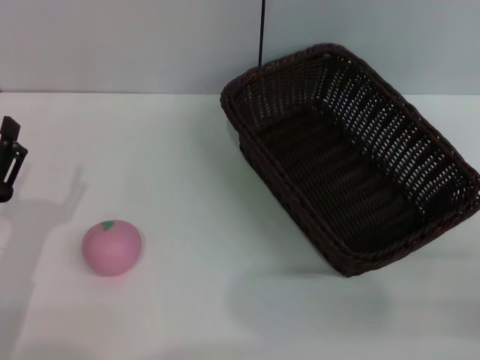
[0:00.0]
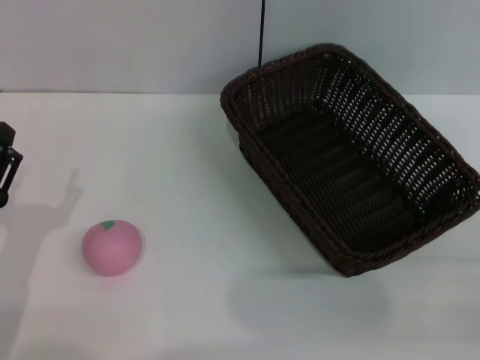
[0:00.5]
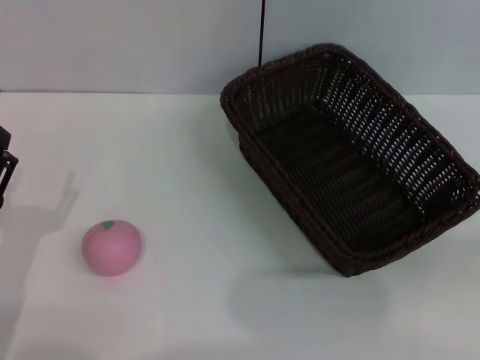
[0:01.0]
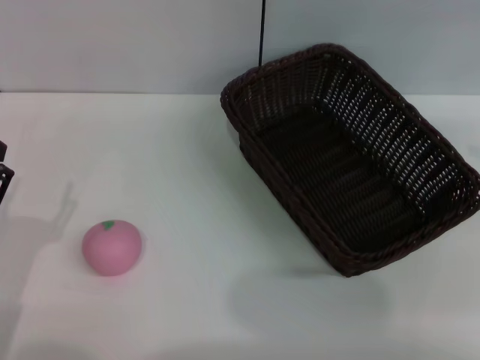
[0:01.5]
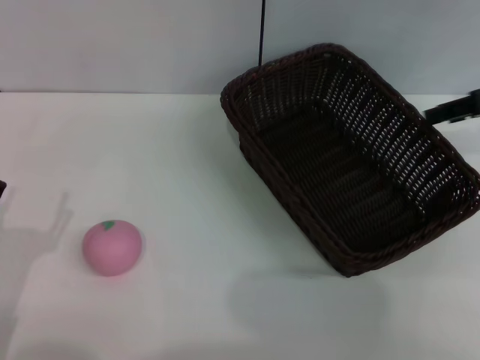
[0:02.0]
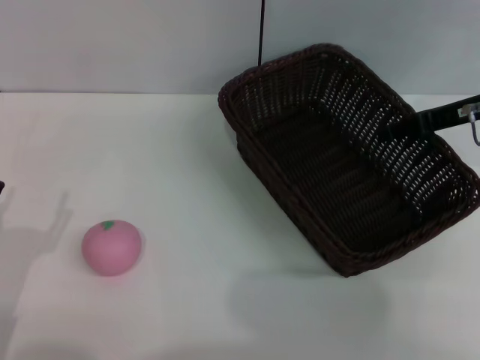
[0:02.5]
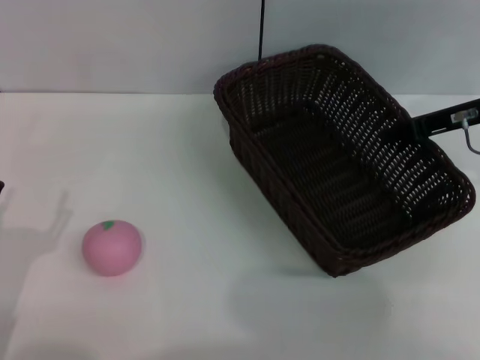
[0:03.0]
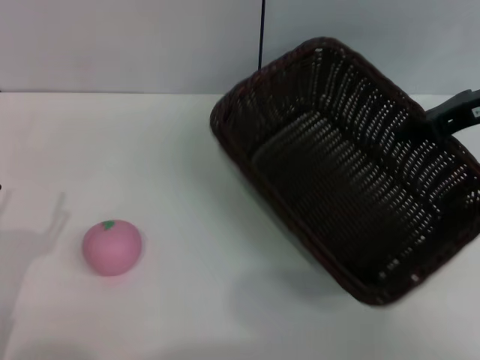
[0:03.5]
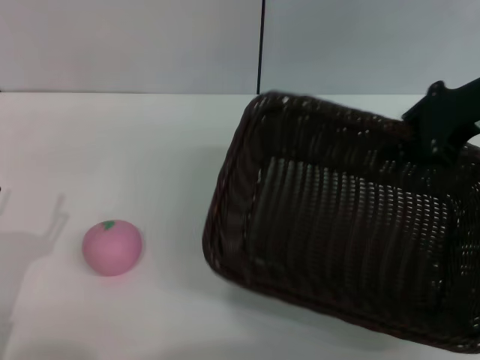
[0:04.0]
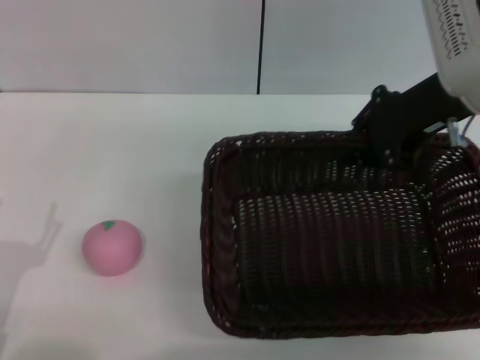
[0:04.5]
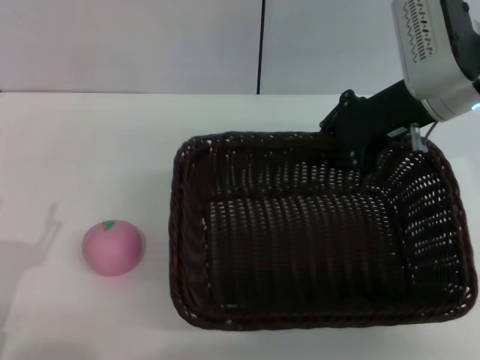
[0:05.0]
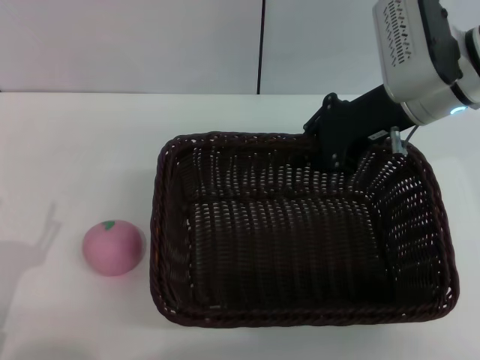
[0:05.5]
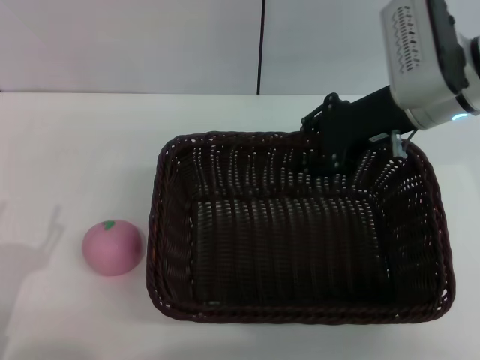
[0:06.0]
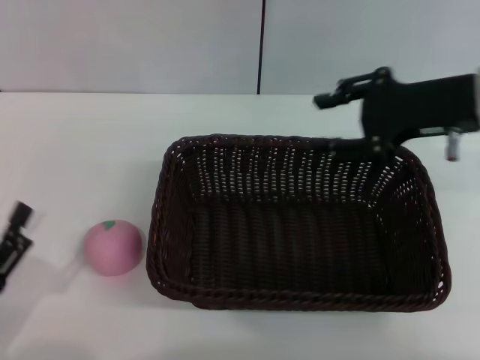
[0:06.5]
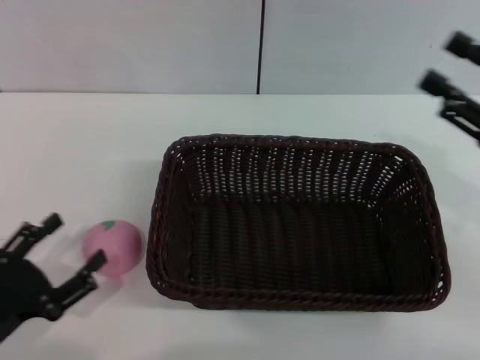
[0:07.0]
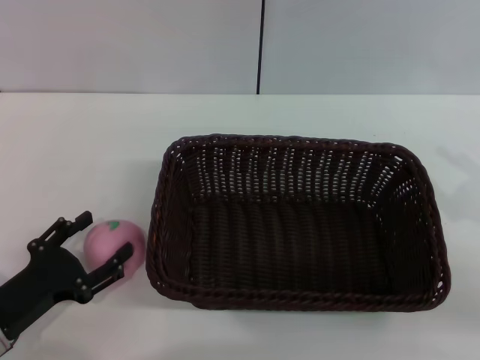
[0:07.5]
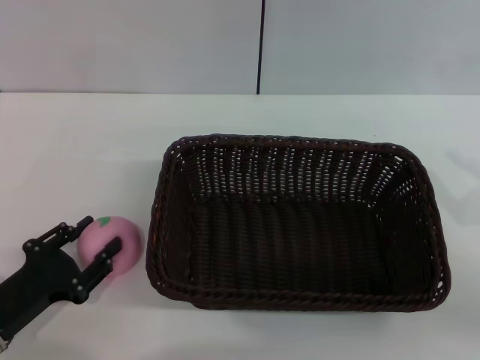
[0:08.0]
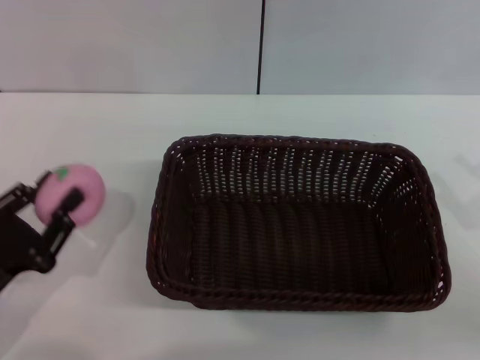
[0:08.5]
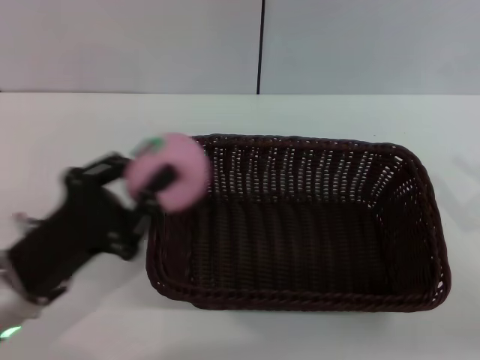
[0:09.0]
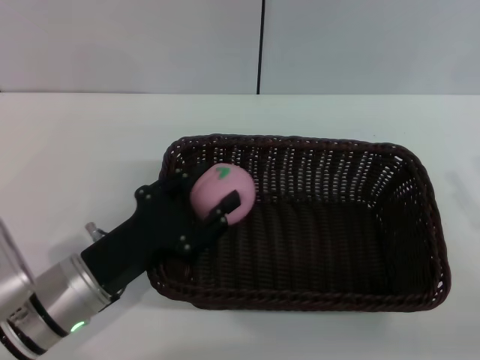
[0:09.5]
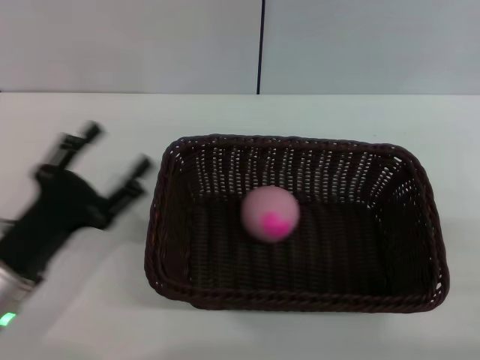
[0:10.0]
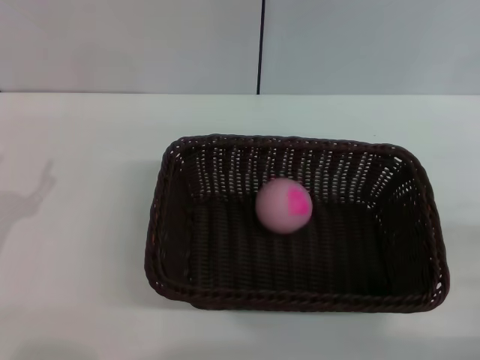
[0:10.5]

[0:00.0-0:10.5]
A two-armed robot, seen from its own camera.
Step, 0:00.0 to 0:03.5: Pick up the dark basket with the right gripper.
Step, 0:04.0 to 0:06.0: Place the dark basket in the center of view with the right gripper.
Step, 0:07.0 to 0:08.5: Pick up the peach with the left gripper.
Step, 0:09.0 to 0:10.0: Place the peach into the basket with the left gripper.
0:00.0 to 0:02.0: The right gripper is displaced forward and upward by roughly 25 cm.
0:02.0 to 0:04.0: The right gripper moves to the left, some 5 cm, and closes up.
0:04.0 to 0:06.5: The right gripper goes to the left and returns, roughly 10 cm each way, and opens its fingers.
0:06.5 to 0:08.5: The left gripper closes its fingers; the right gripper travels backward, to the right and downward by approximately 20 cm.
0:08.5 to 0:10.5: The left gripper goes to the right and returns, approximately 10 cm each way, and opens its fingers; the right gripper moves roughly 5 cm.

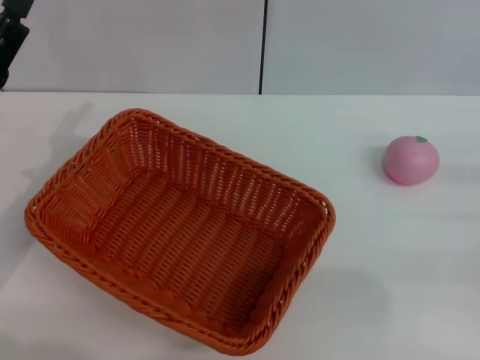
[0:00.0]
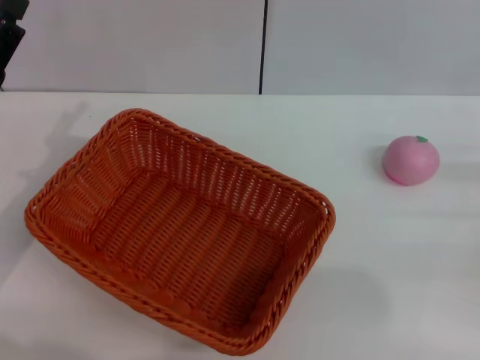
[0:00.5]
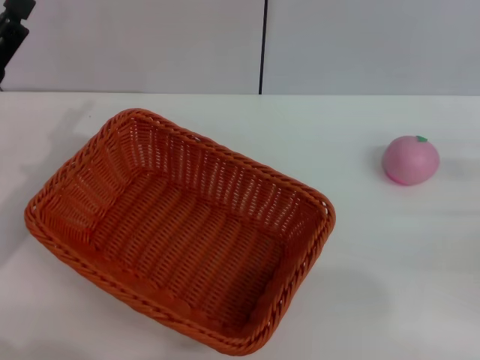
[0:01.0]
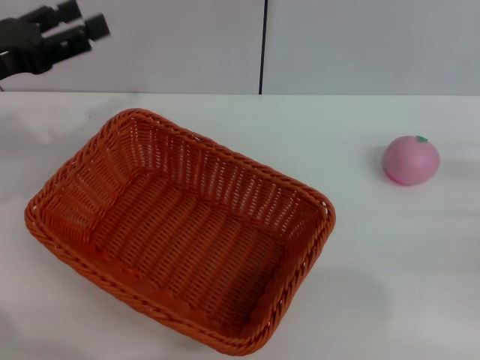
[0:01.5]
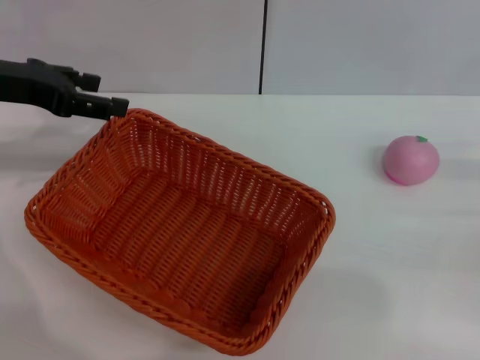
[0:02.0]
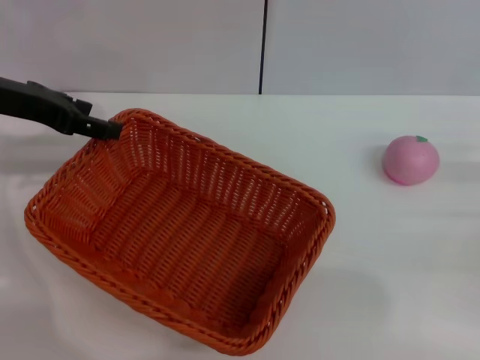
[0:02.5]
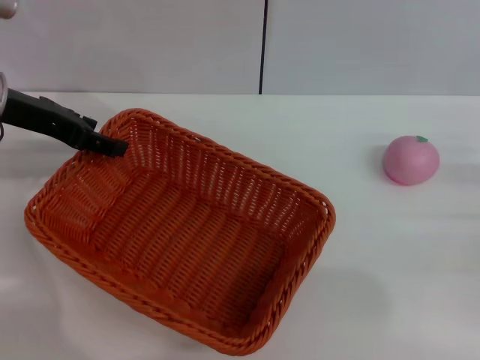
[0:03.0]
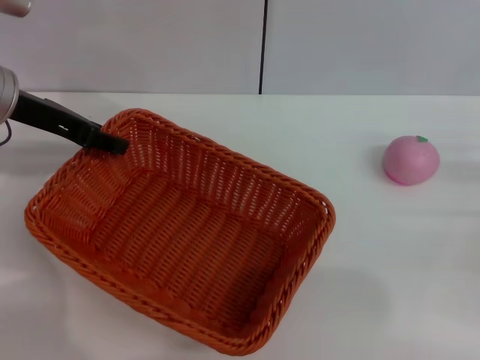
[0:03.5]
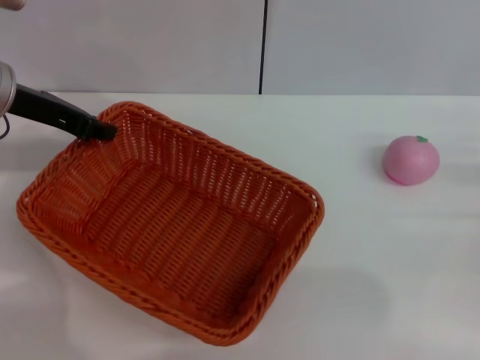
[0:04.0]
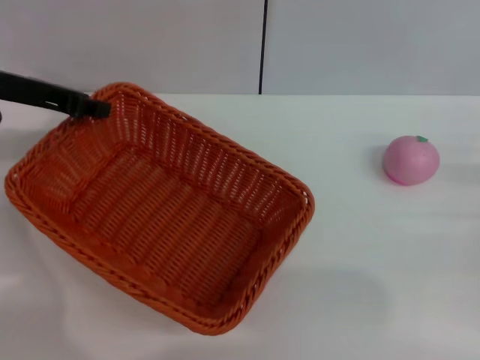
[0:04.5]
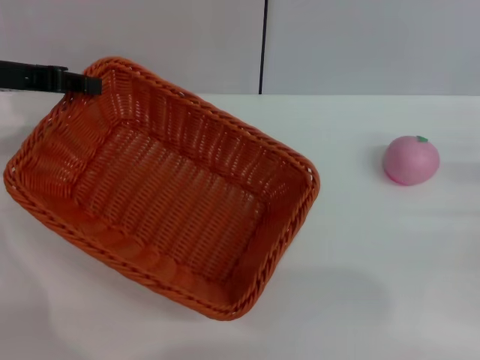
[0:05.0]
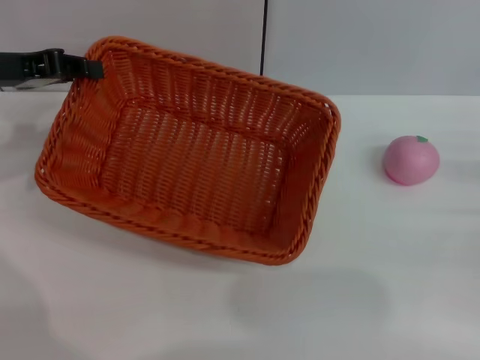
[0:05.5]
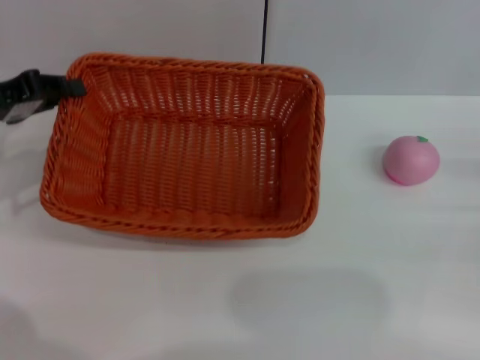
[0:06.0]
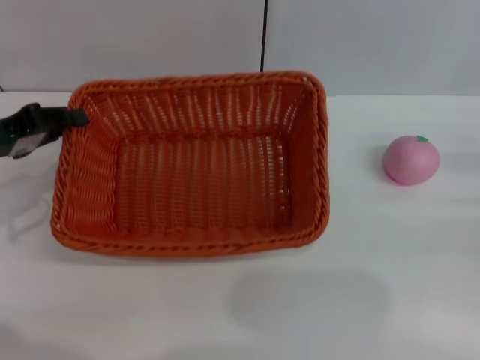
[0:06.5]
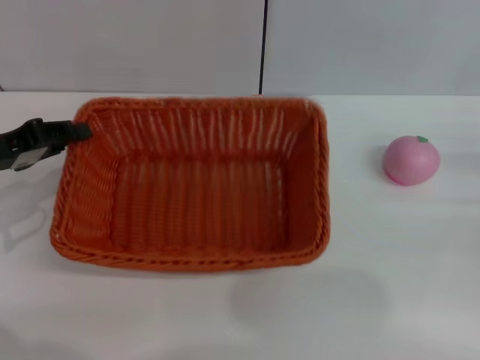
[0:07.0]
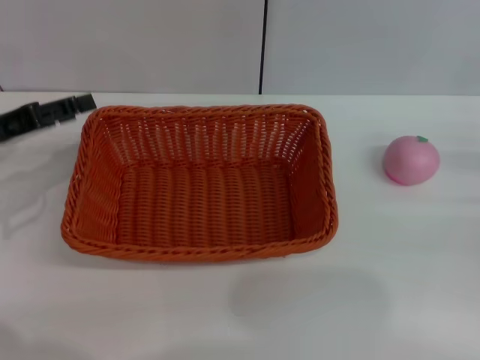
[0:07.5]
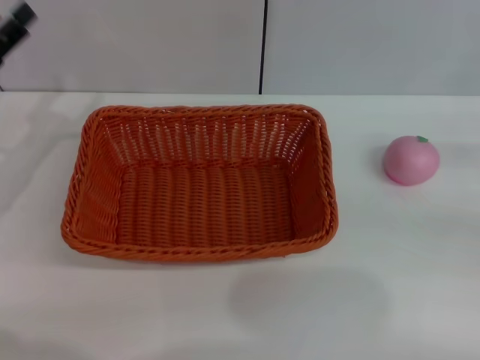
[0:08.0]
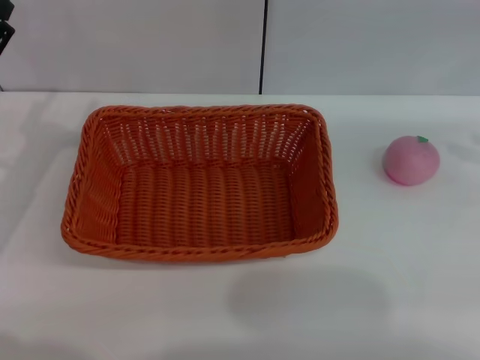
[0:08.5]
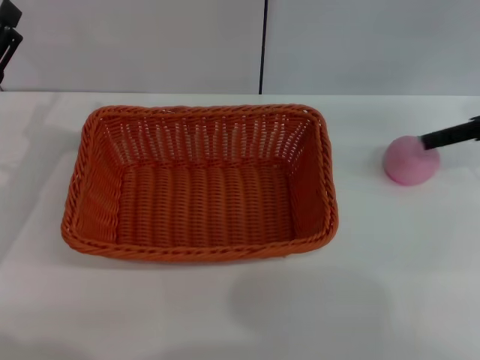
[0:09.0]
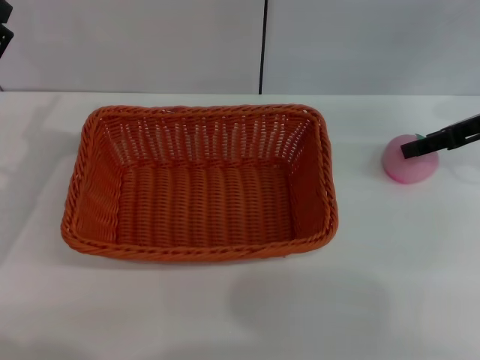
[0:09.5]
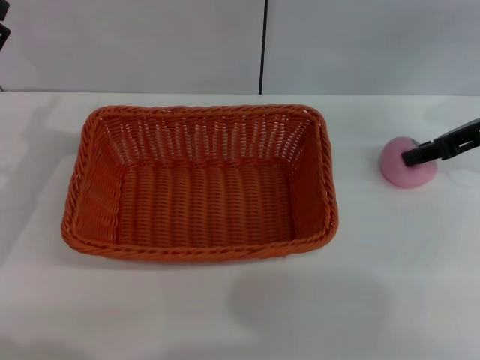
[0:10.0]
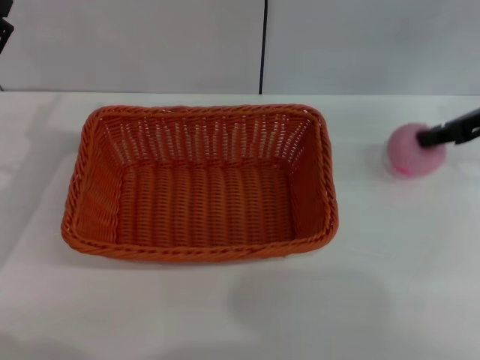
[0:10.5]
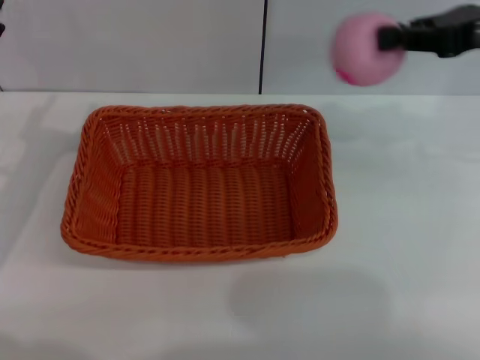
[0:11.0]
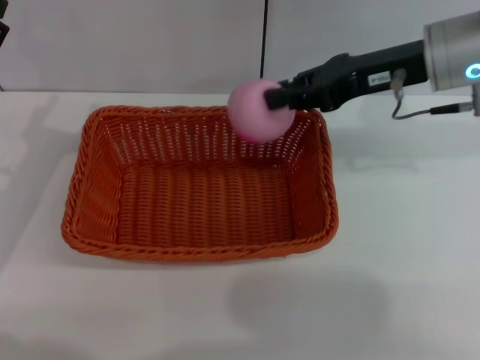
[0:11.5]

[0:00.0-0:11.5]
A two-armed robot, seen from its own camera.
Step, 0:00.0 to 0:04.5: Pick up the light basket with the left gripper.
Step, 0:05.0 to 0:07.5: Place the light basket in the center of view with the right gripper.
Step, 0:08.0 to 0:10.5: Pick up the peach with the left gripper.
0:00.0 to 0:02.0: The left gripper travels upward and forward by some 15 cm.
0:02.0 to 0:04.0: The left gripper closes up.
0:04.0 to 0:06.0: The left gripper heads to the left, covering approximately 5 cm.
0:06.0 to 0:07.5: The left gripper opens up.
0:07.5 to 0:09.5: The right gripper travels forward, upward and to the left by roughly 20 cm, while the left gripper opens its fingers.
0:09.5 to 0:11.5: The right gripper is displaced to the left by about 10 cm, and closes.

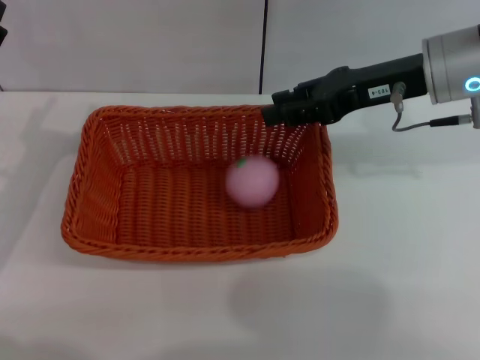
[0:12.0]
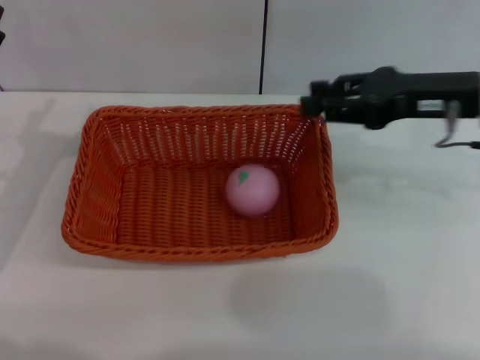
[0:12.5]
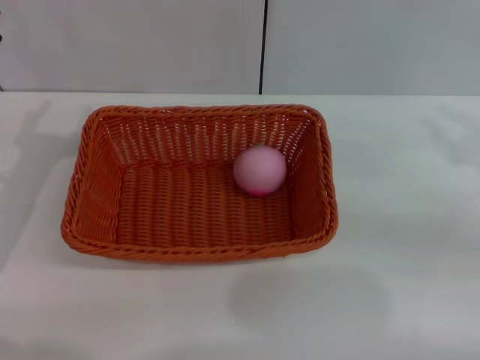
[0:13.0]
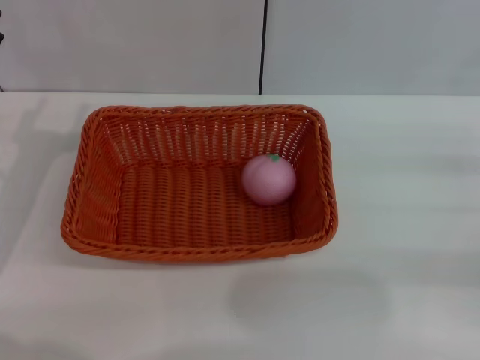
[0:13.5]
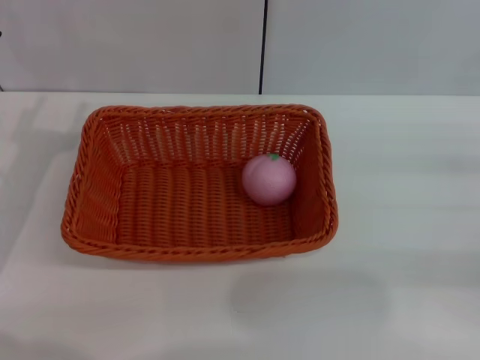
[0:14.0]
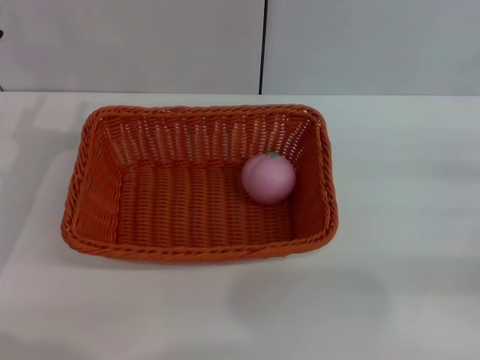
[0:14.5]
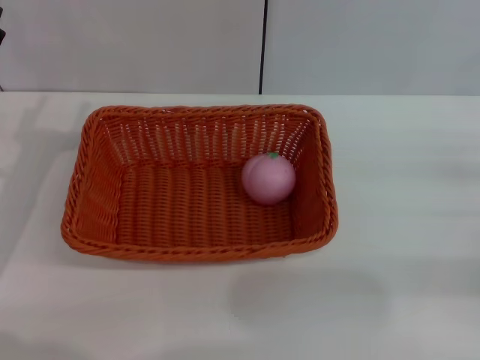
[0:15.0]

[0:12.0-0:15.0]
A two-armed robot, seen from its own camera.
0:12.0 to 0:13.5: The right gripper goes some 25 cm to the right, backward and downward.
